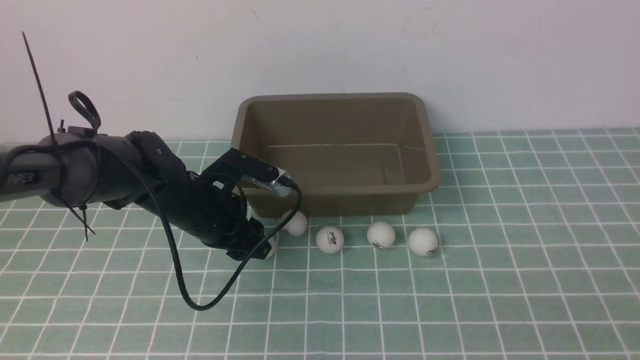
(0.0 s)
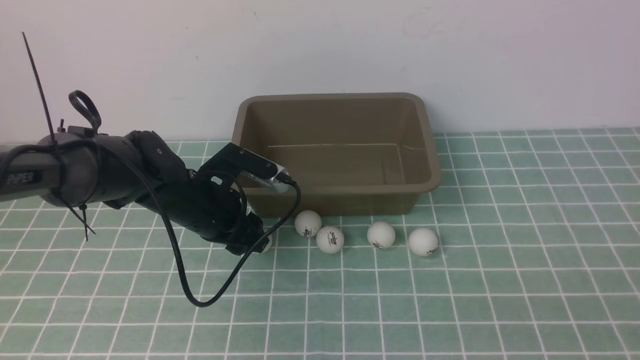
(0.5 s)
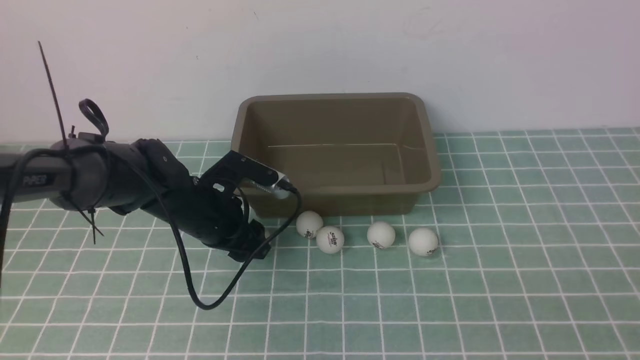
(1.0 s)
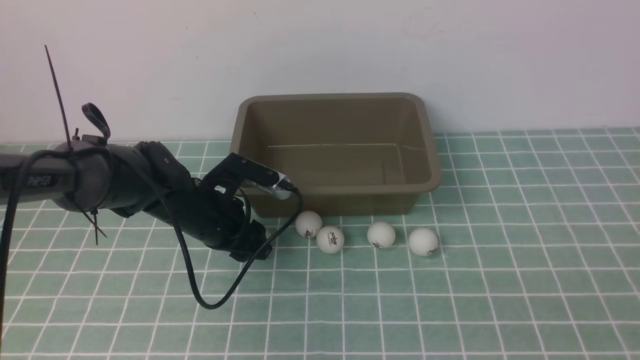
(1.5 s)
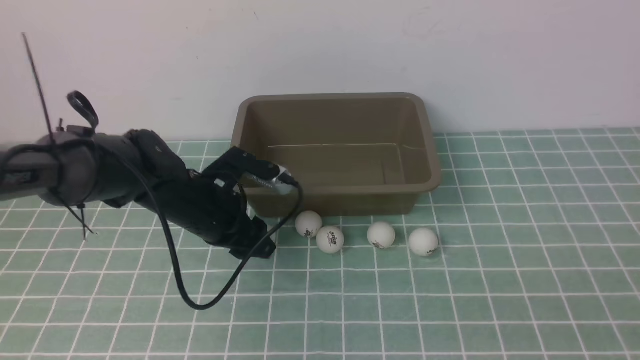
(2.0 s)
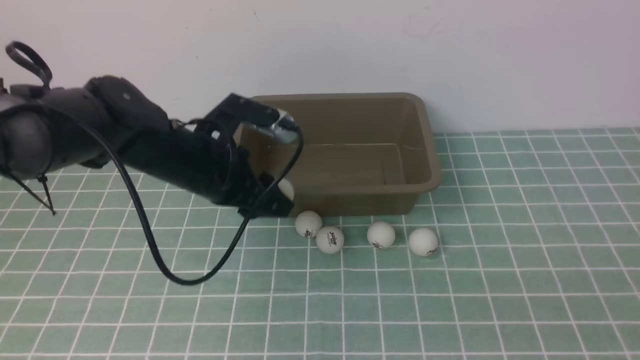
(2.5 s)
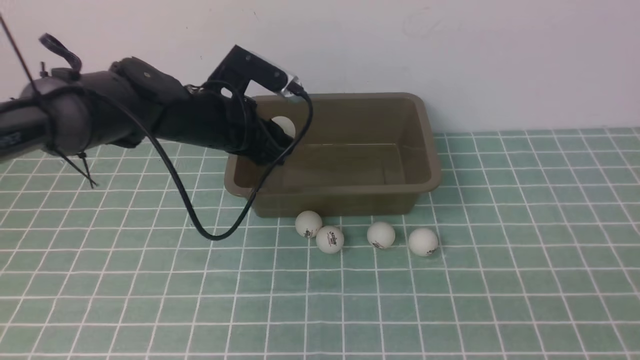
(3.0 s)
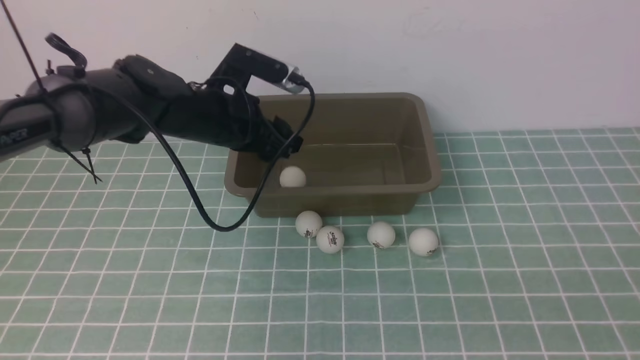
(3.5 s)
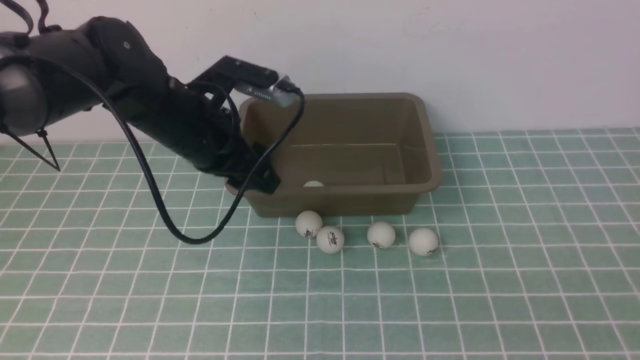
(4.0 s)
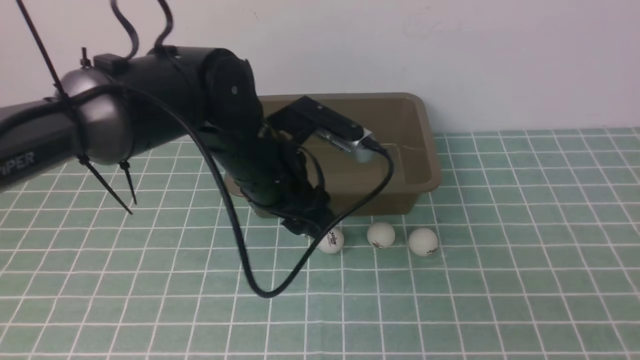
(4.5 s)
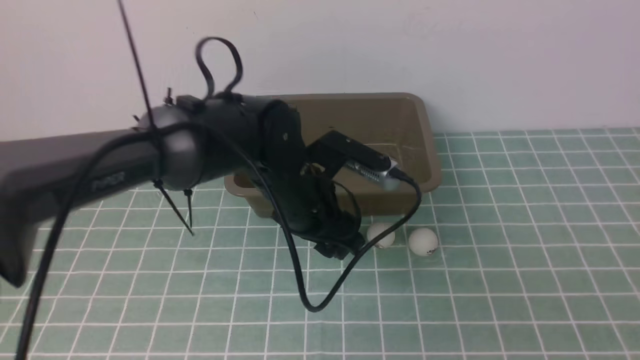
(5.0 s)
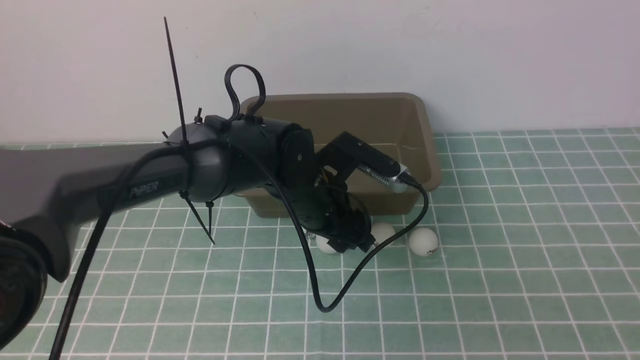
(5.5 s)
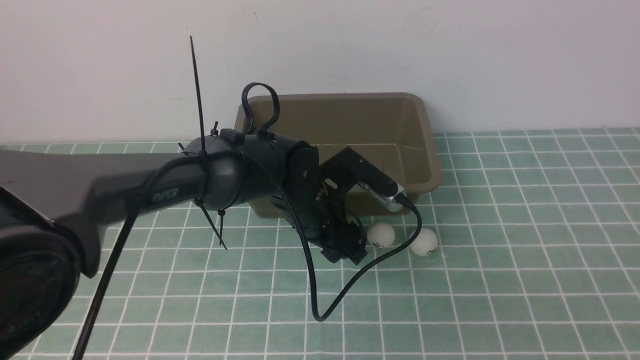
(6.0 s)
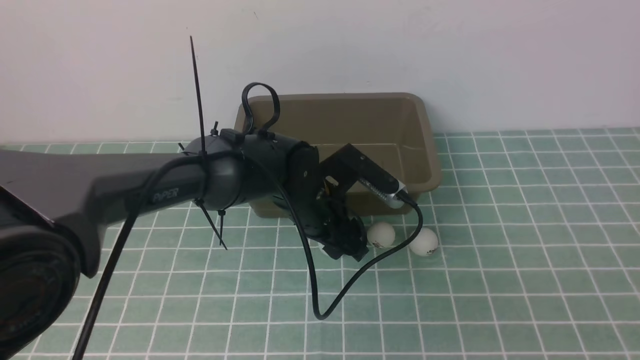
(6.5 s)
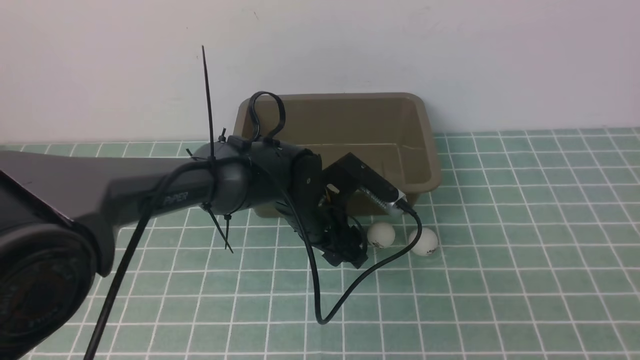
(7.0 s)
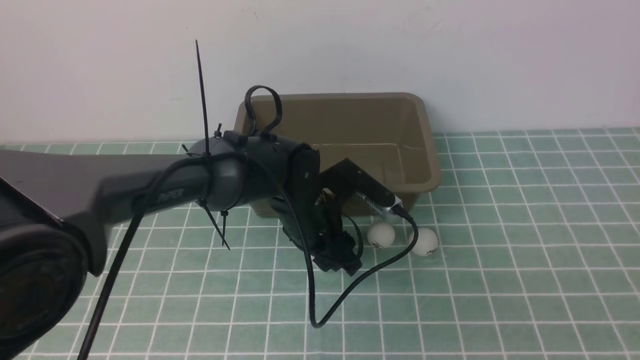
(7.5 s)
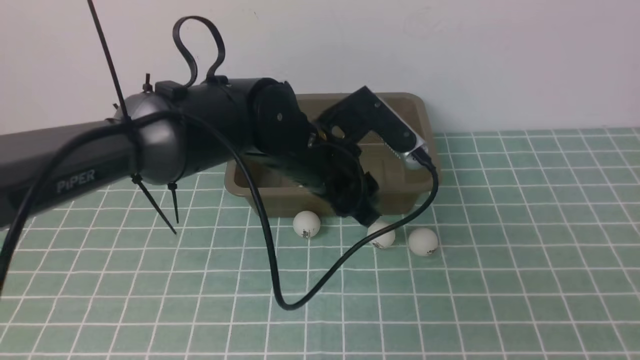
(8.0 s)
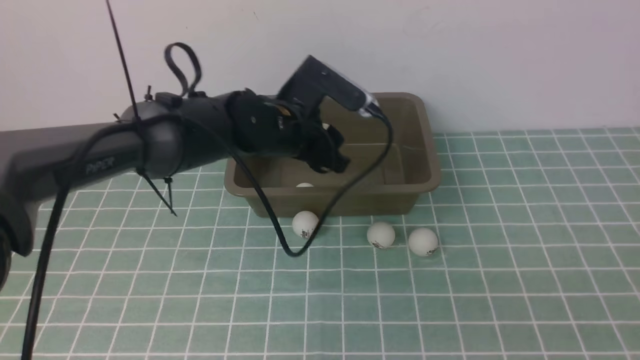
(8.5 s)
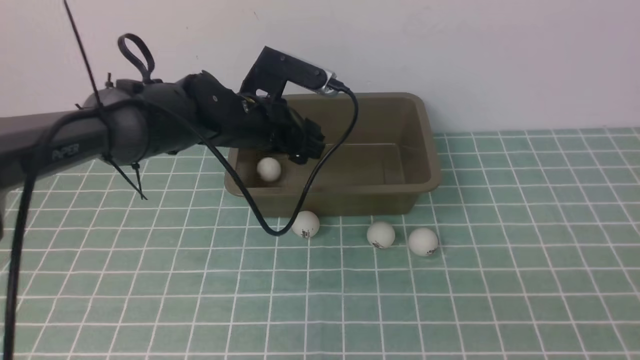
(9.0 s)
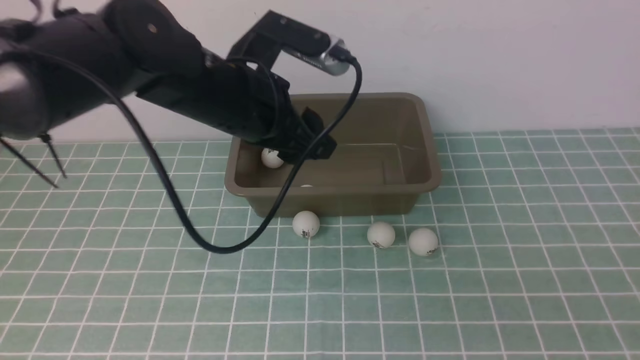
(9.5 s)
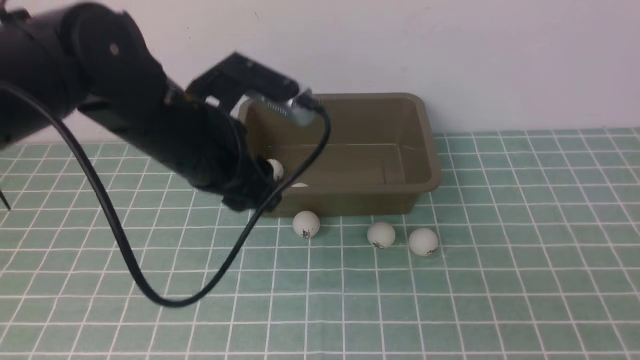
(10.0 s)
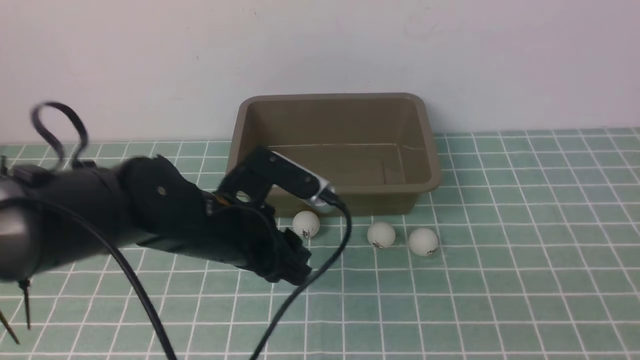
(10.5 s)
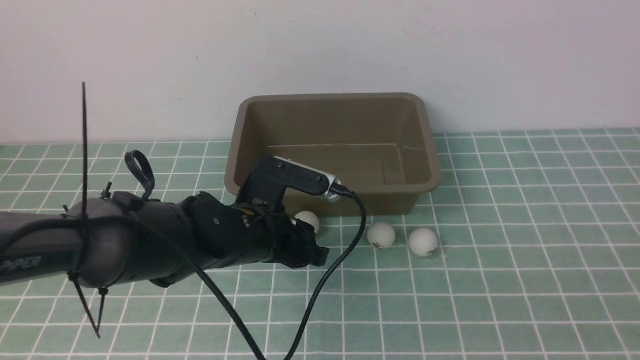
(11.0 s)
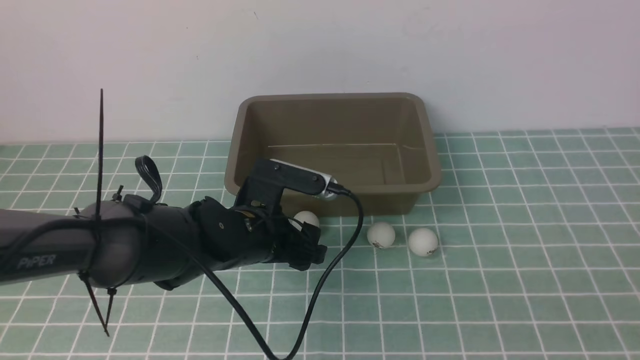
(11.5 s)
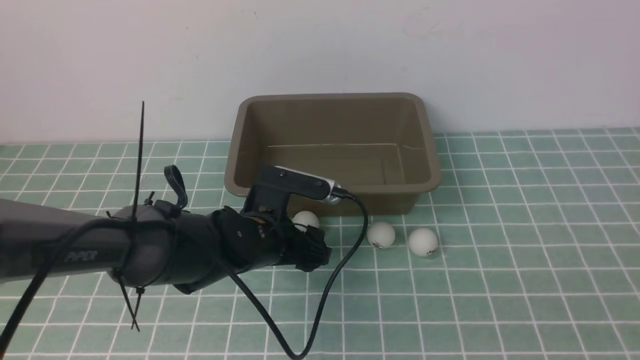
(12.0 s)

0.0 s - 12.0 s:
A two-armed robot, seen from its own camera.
Step, 0.0 s - 2.0 s: use the left arm to clamp the table tennis ball closest to it.
Step, 2.5 s - 3.0 s: use the left arm to put the table tennis ball into the box.
Step, 4.0 s - 7.5 s: use the left arm to clamp the table tennis ball closest to it.
Step, 8.0 s - 9.0 s: use the left arm to put the table tennis ball into the box.
0.0 s - 2.0 s: There are only small adjustments of the grippers.
2.0 s - 4.0 s: The left gripper moves upward, roughly 10 cm.
4.0 s - 6.0 s: The left gripper travels to the right and downward by about 15 cm.
6.0 s - 8.0 s: The left gripper goes some 5 cm upward.
8.0 s - 10.0 s: The left gripper shifts roughly 10 cm to the left and backward.
10.0 s - 12.0 s: The left gripper heads downward, covering roughly 10 cm, and opens up.

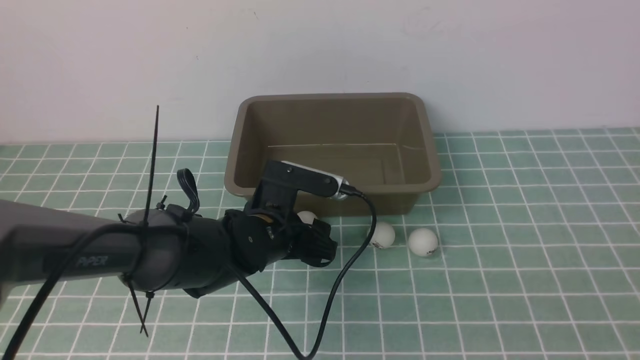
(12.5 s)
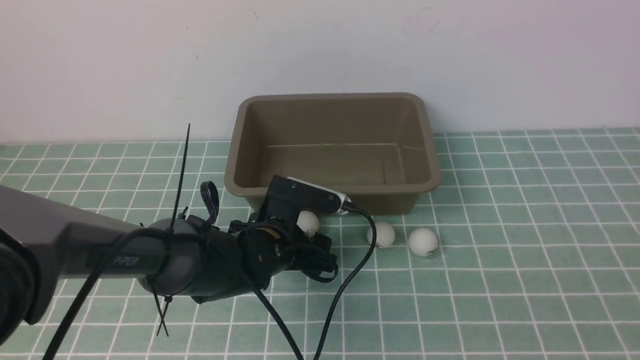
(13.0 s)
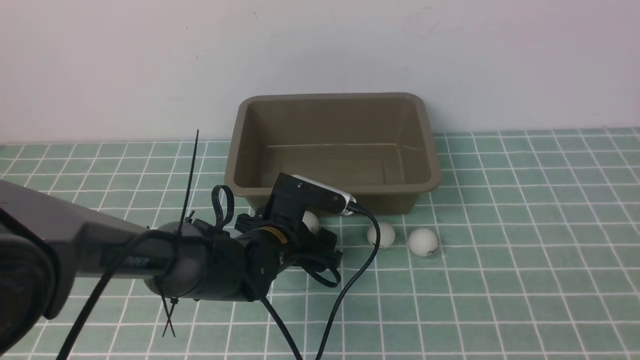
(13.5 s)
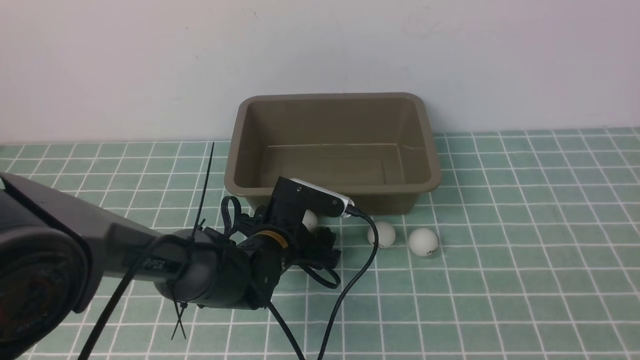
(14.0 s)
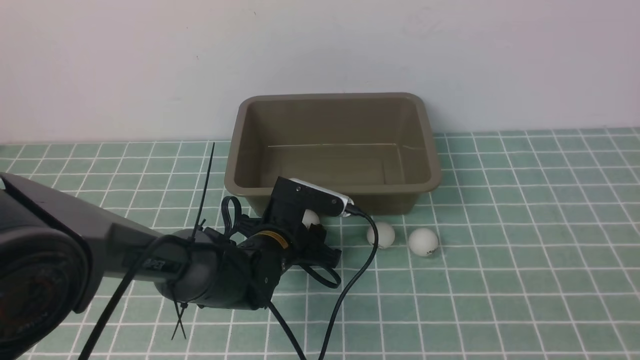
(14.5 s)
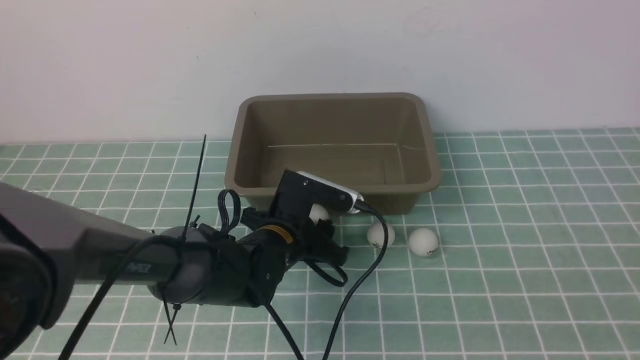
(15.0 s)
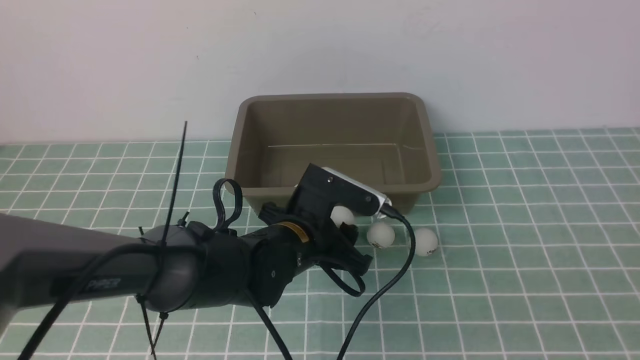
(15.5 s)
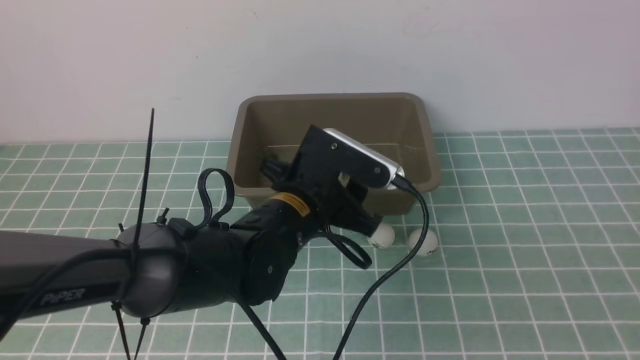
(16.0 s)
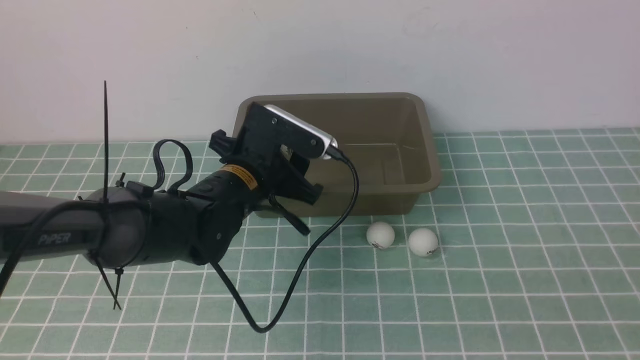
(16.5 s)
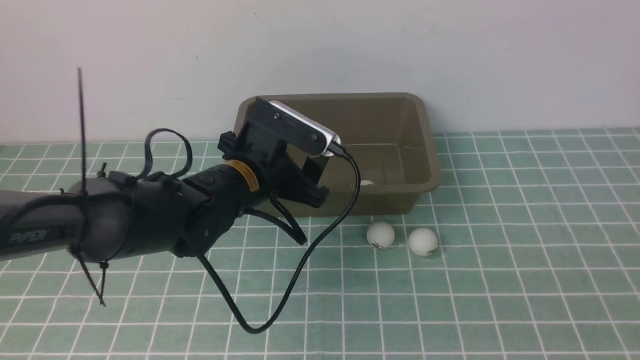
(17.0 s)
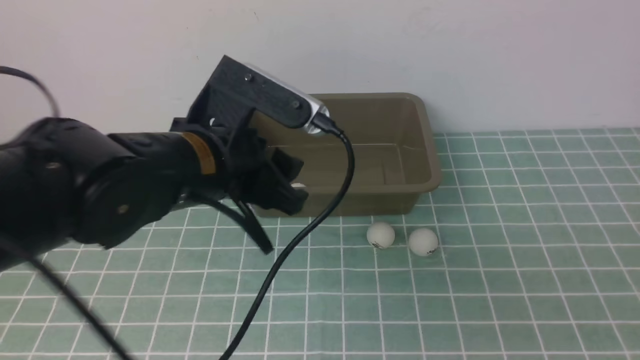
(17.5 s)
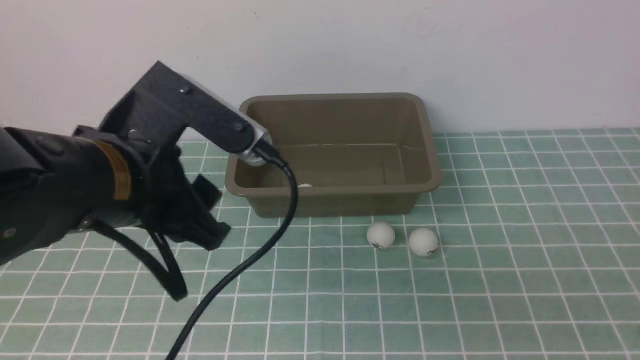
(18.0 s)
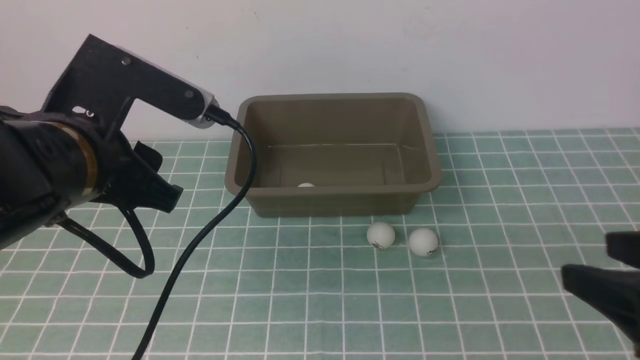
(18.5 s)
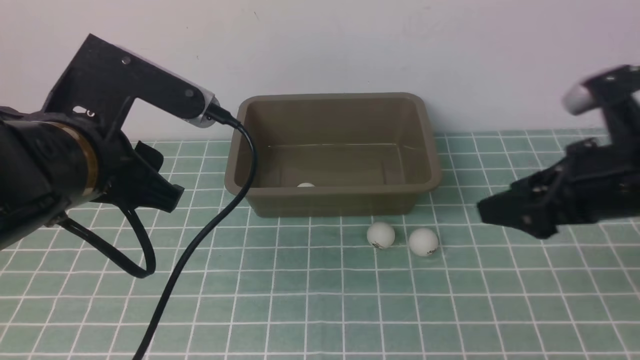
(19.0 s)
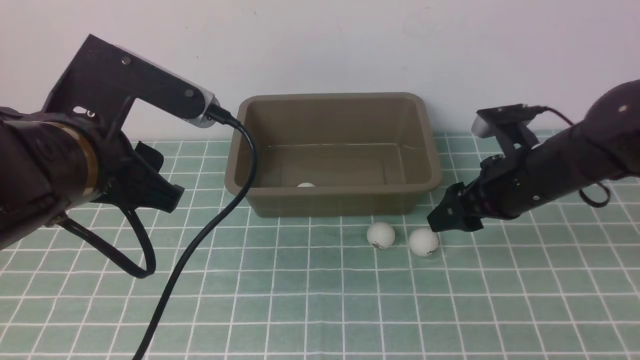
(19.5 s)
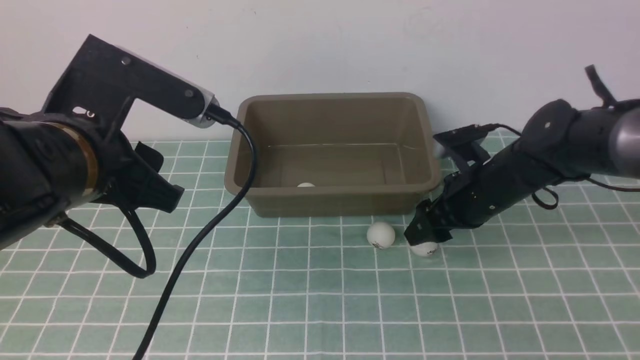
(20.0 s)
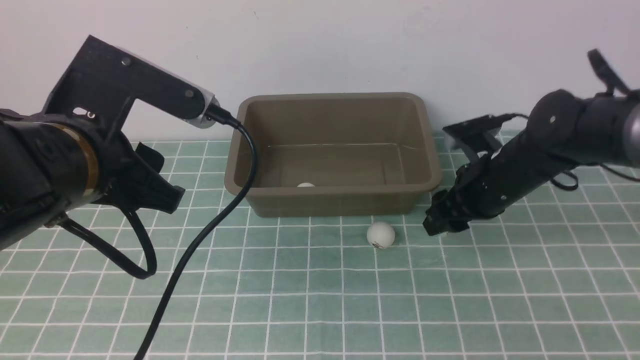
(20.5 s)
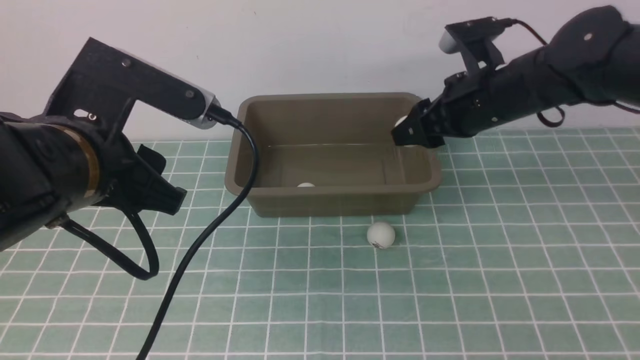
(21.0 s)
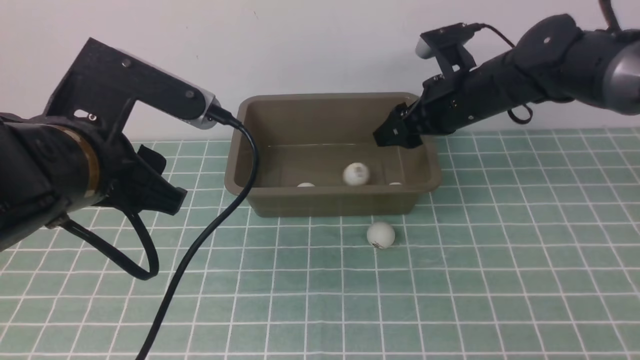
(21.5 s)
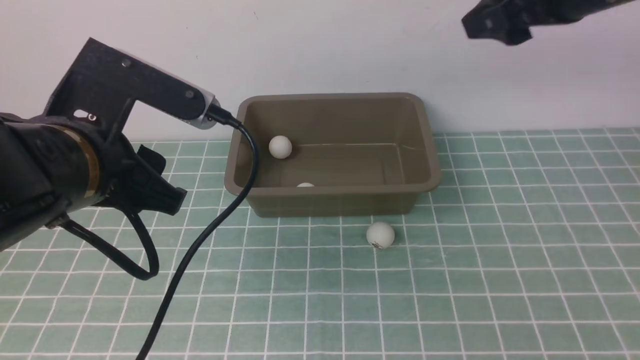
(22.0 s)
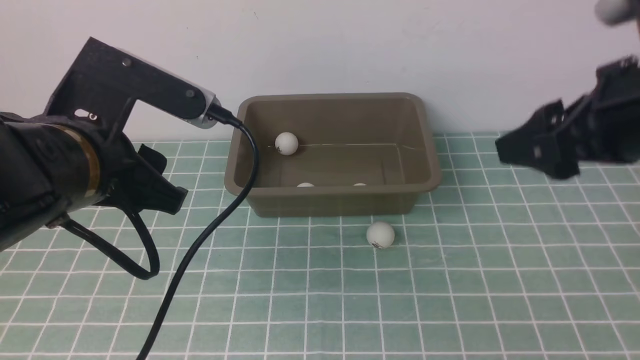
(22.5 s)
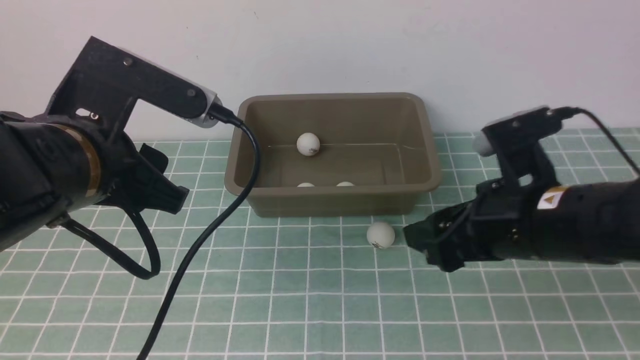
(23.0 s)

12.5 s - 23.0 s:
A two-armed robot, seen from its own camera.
Step, 12.5 s - 15.0 s: use the left arm to clamp the table tennis ball closest to it.
Step, 15.5 s - 17.0 s: use the left arm to put the table tennis ball into the box.
Step, 17.5 s - 20.5 s: use the right arm to clamp the table tennis ball closest to it.
Step, 21.0 s - 21.5 s: use the right arm to put the table tennis ball into the box.
12.5 s - 14.5 s: The left gripper closes.
14.5 s - 16.5 s: The left gripper heads upward, covering some 10 cm.
16.5 s - 19.0 s: The left gripper is displaced upward, backward and to the left by about 20 cm. The right gripper moves forward, approximately 30 cm.
19.0 s - 21.0 s: The right gripper moves upward and forward, about 10 cm, and closes, then opens again.
21.0 s - 23.0 s: The right gripper travels downward and backward by approximately 20 cm.
